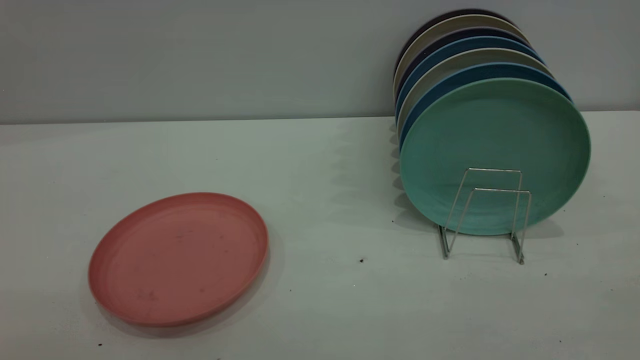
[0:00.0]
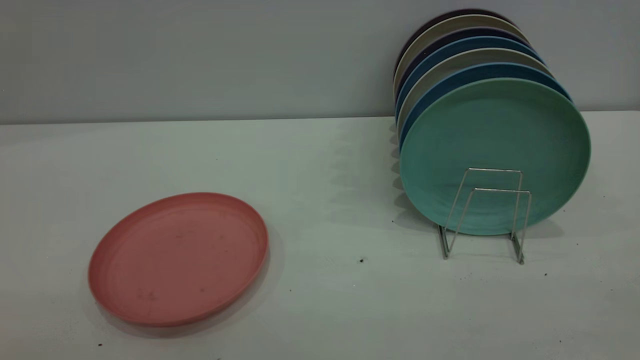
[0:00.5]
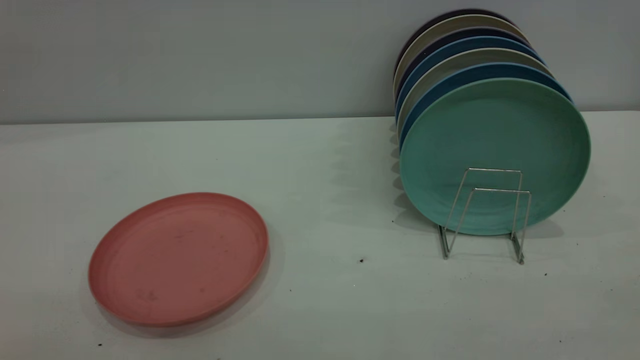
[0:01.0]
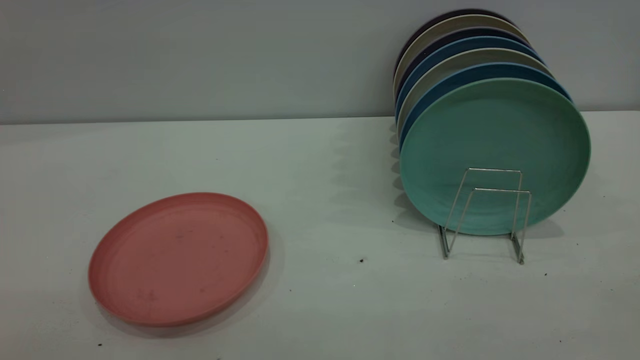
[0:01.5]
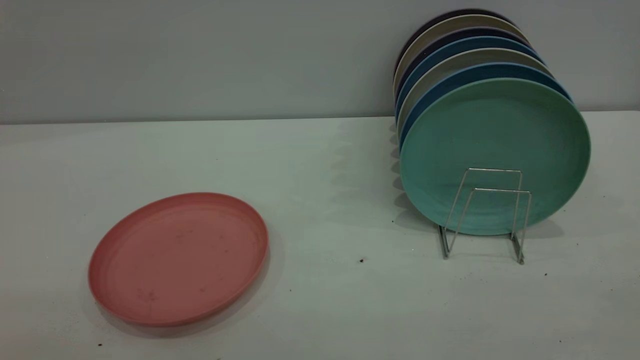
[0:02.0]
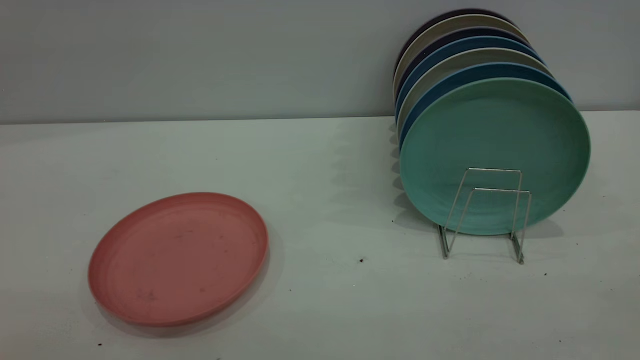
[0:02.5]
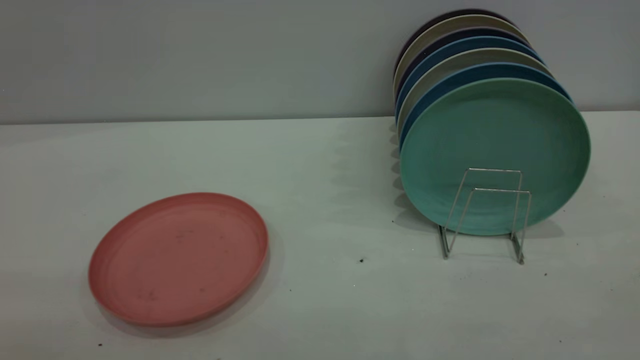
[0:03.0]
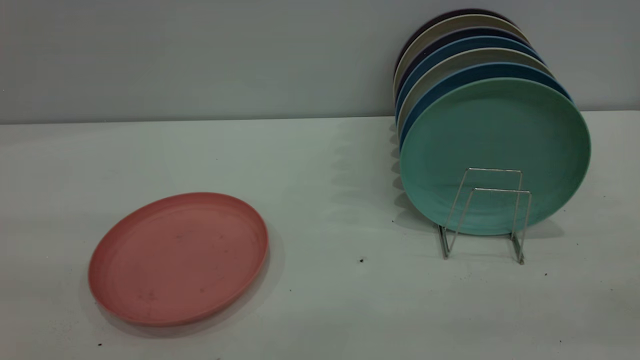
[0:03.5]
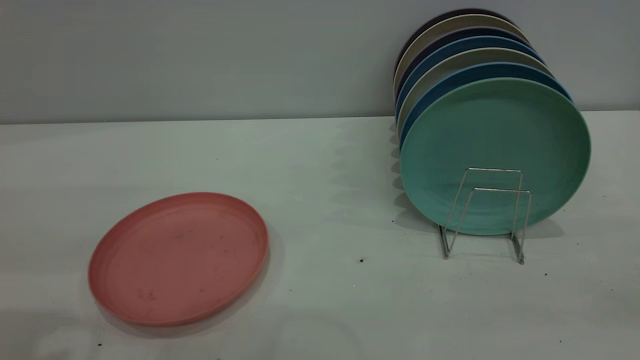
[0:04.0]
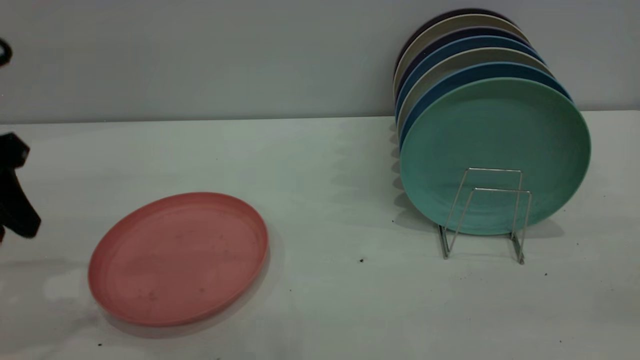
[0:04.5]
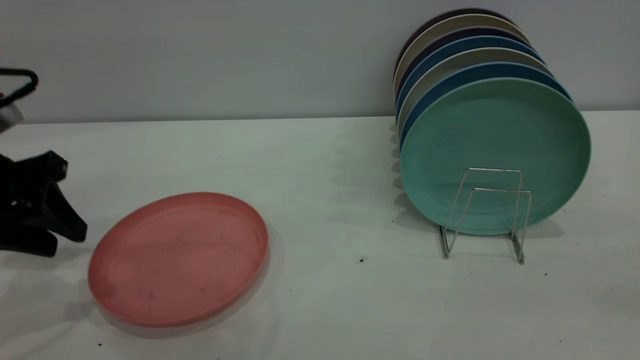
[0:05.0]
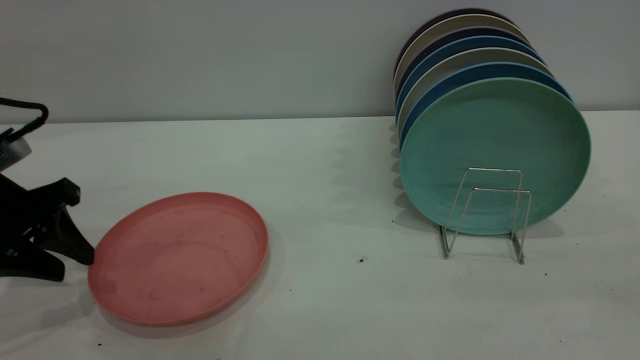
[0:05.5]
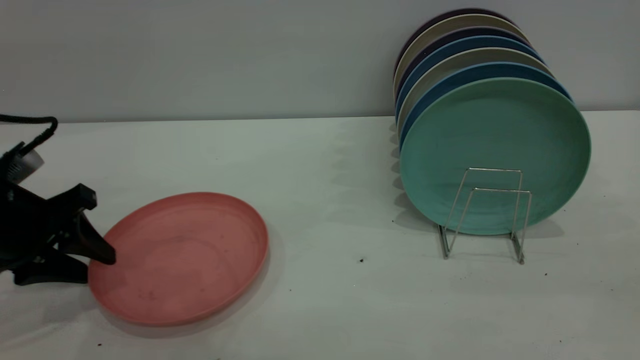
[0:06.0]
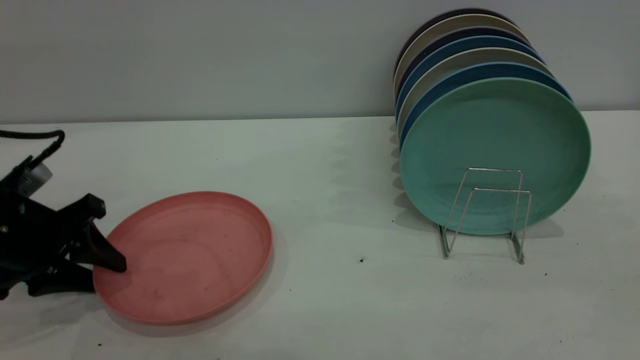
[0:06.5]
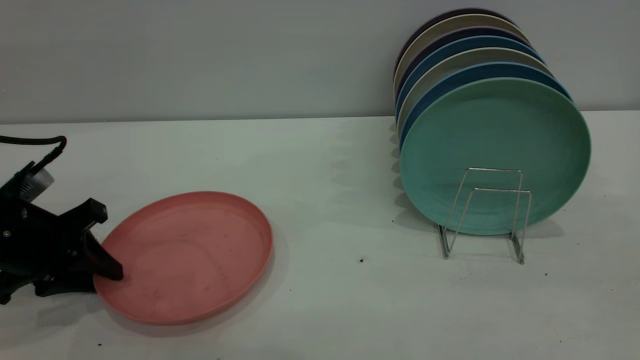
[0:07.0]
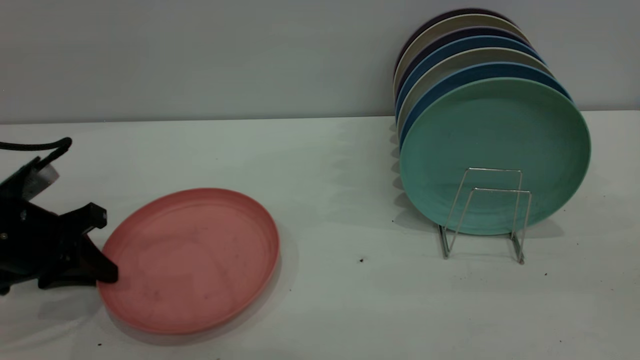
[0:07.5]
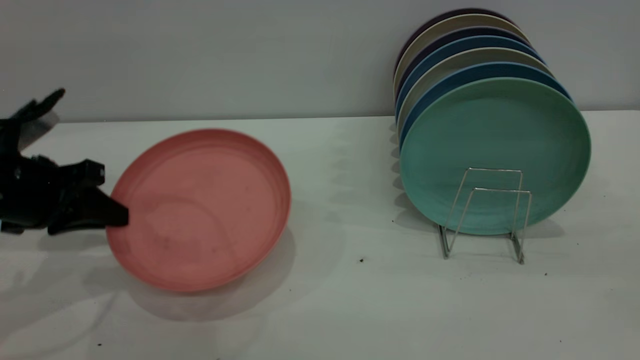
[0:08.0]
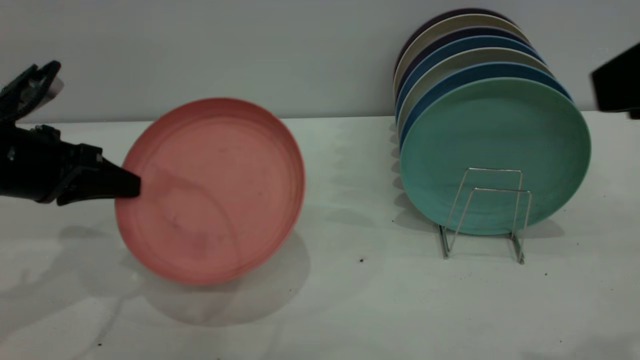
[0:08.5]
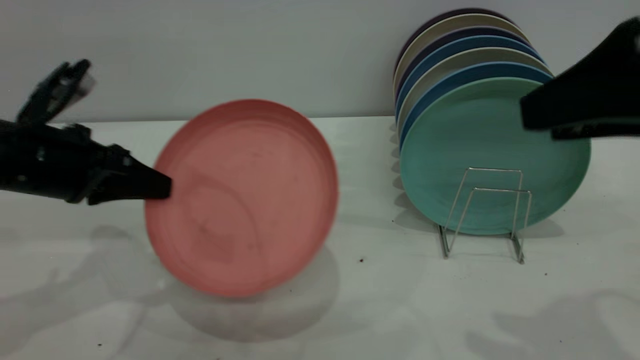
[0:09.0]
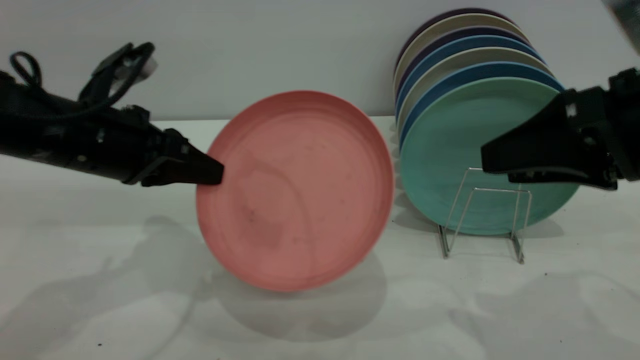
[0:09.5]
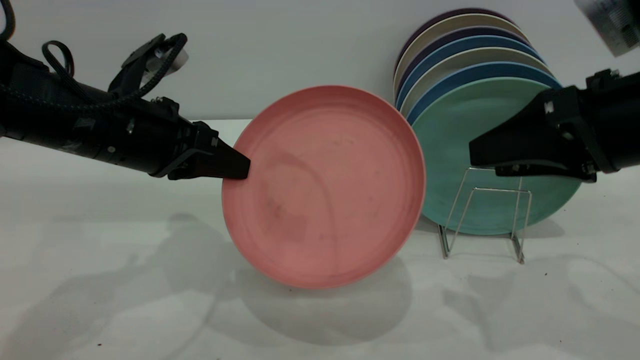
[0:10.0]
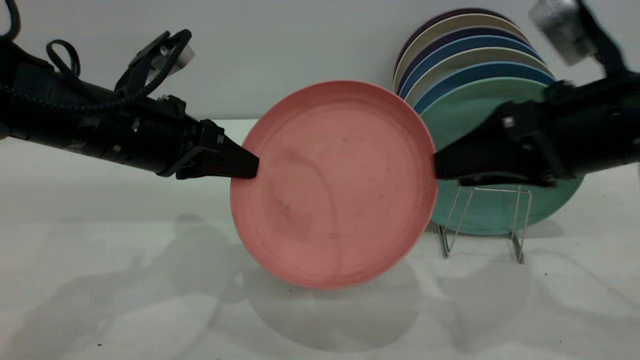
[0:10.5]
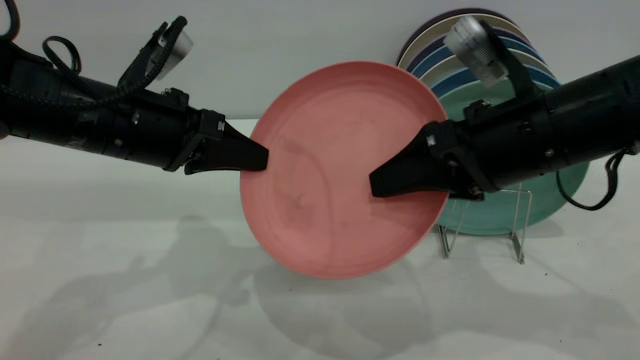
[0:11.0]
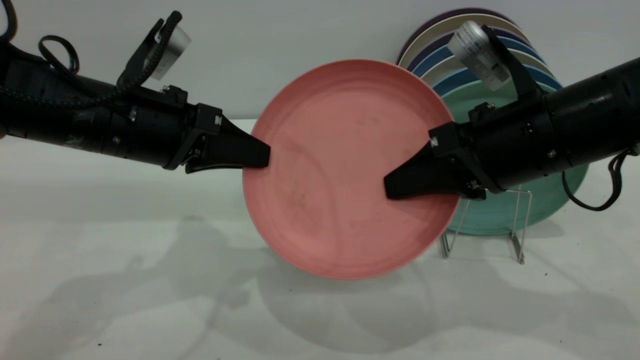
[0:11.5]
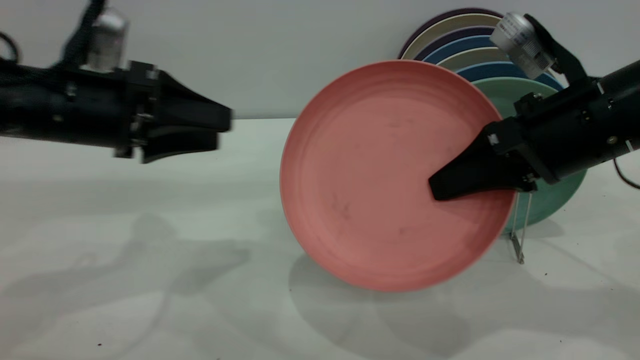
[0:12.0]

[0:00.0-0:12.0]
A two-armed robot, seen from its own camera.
Task of the whole recording: put the plate on the plate rack.
Step, 0:00.0 to 0:07.5: Pick up the plate with the left gripper.
Step, 0:08.5 to 0:12.0: Pass the plate from the left gripper to the right gripper.
0:00.0 to 0:02.0: Both grippers stay put.
0:04.0 to 0:06.0: The left gripper travels downward and forward by some 20 cm.
0:06.0 to 0:08.0: The right gripper shifts roughly 5 cm forward, while the left gripper closes its fingers.
0:08.0 to 0:10.0: The left gripper travels to the right by approximately 10 cm. Meanwhile the right gripper heads forward and downward, covering some 20 cm.
0:10.0 to 0:12.0: The right gripper closes its fingers, while the left gripper opens.

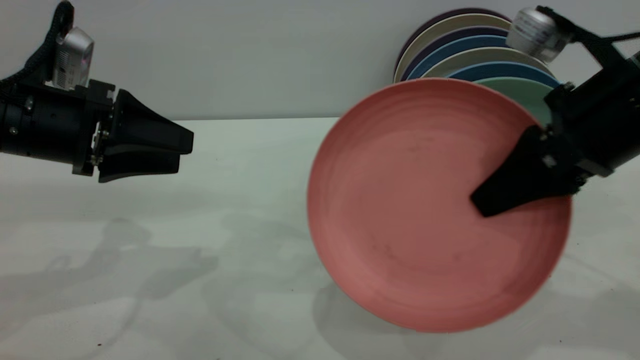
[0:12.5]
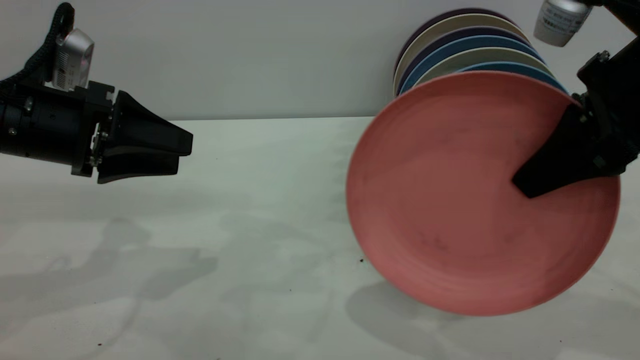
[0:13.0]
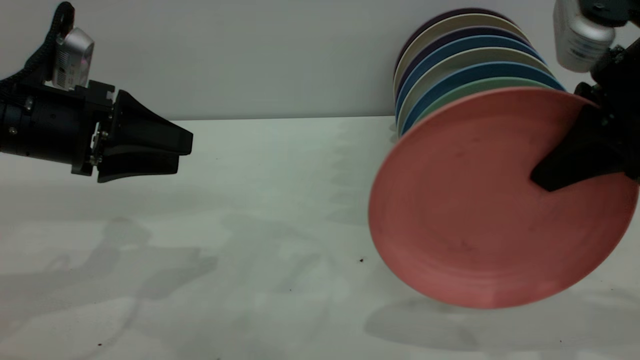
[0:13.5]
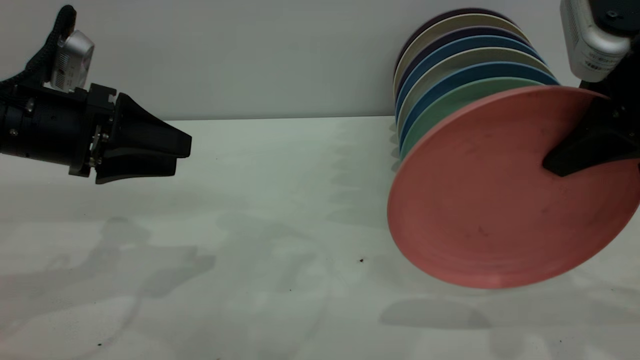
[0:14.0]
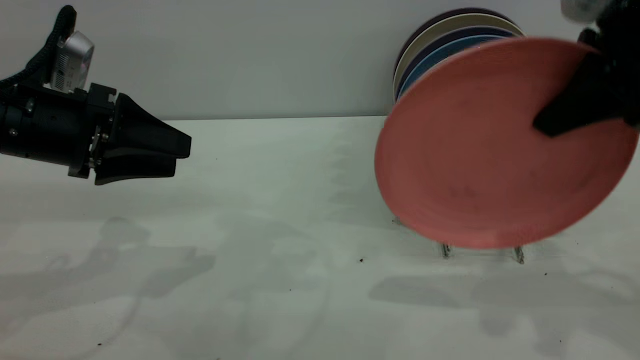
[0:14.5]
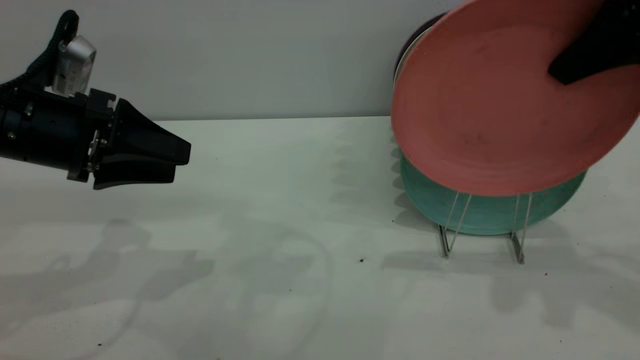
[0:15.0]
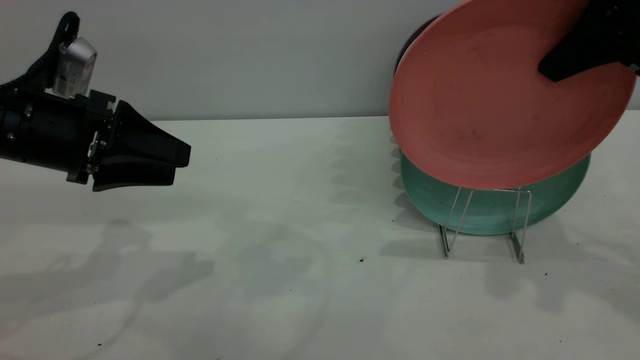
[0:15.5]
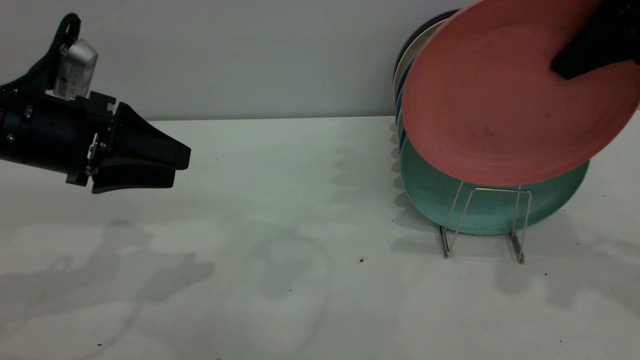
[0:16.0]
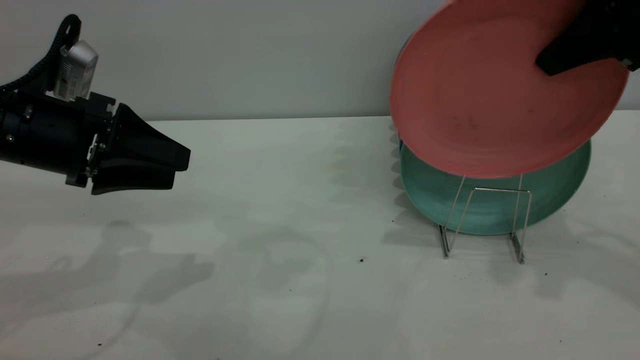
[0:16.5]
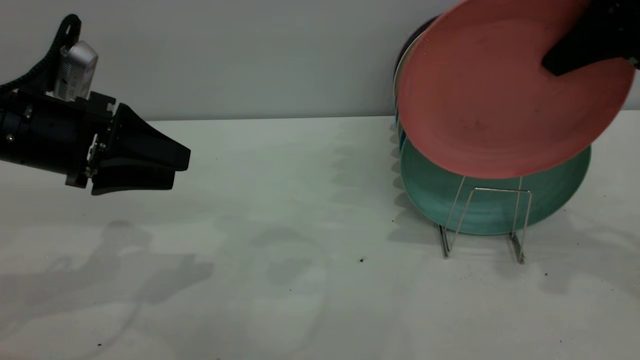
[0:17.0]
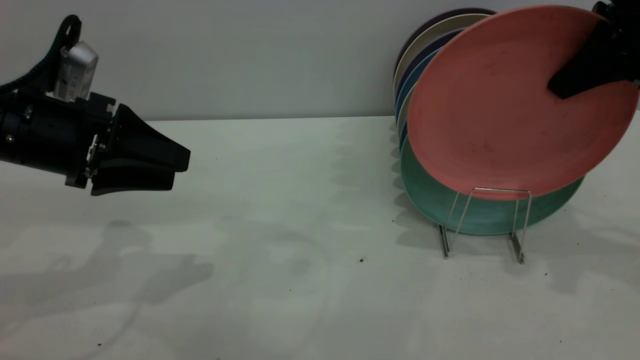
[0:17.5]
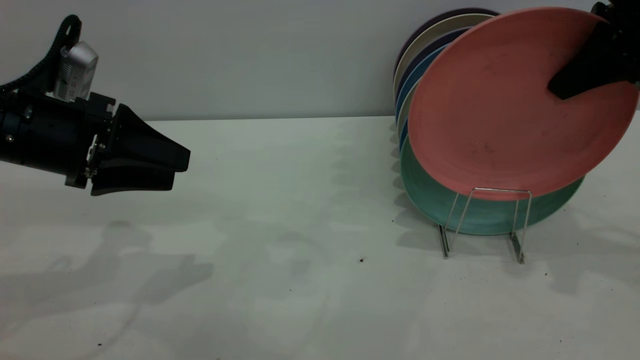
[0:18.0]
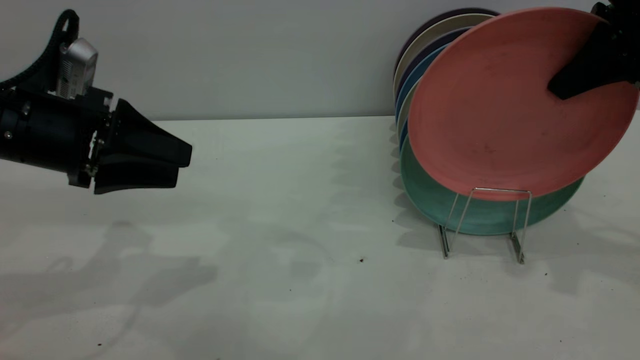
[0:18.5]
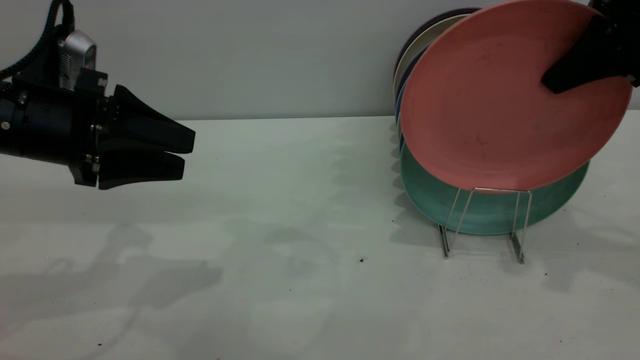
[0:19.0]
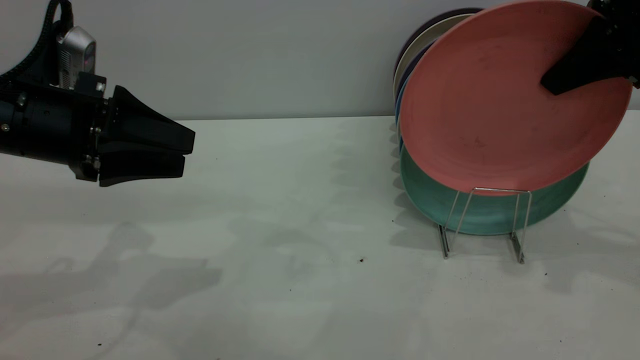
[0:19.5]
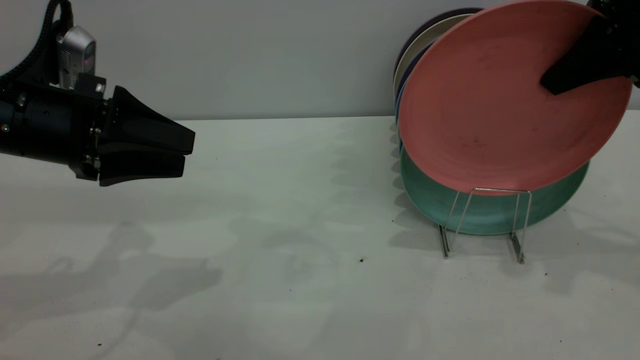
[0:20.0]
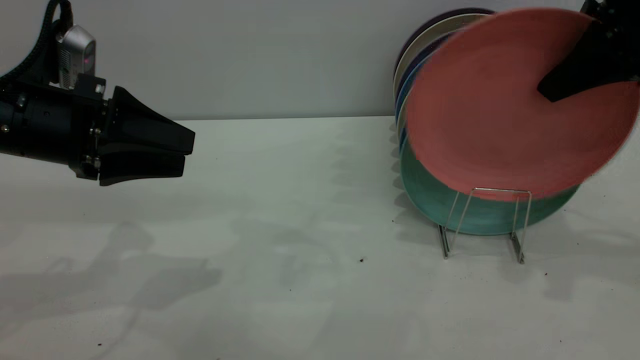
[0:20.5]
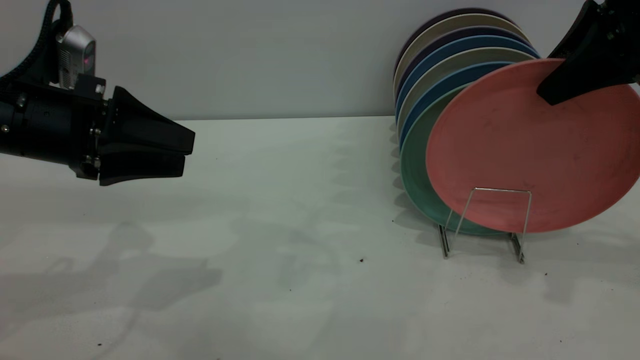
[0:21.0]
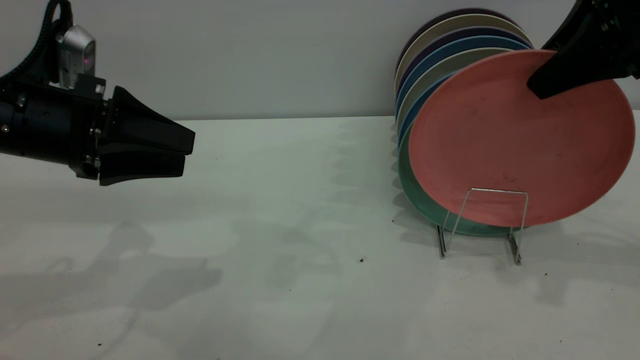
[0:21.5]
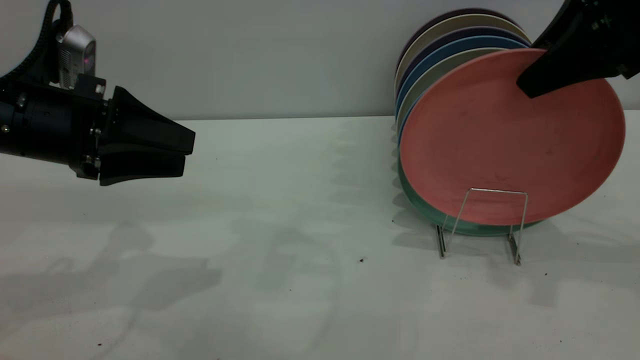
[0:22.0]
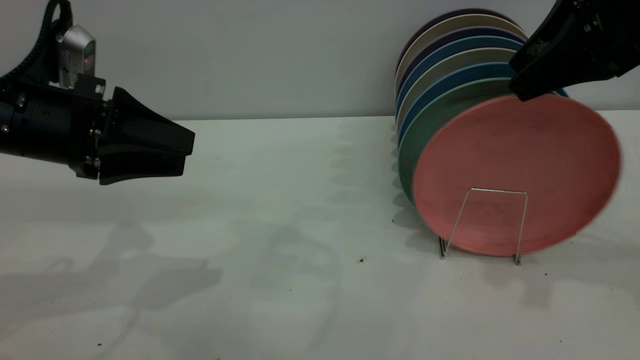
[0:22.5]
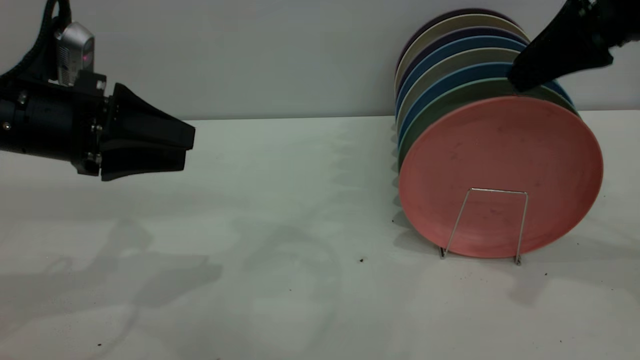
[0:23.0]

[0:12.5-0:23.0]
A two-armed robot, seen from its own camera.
Task of the whole recording: put the plate on the plate rack.
0:12.5 to 0:14.5: The right gripper heads upward, covering approximately 5 cm.
0:14.5 to 0:16.5: The right gripper heads forward, covering roughly 5 cm.
0:16.5 to 0:19.0: The grippers move only a little.
0:19.0 to 0:21.0: The right gripper opens up.
0:21.0 to 0:23.0: The right gripper opens up.
